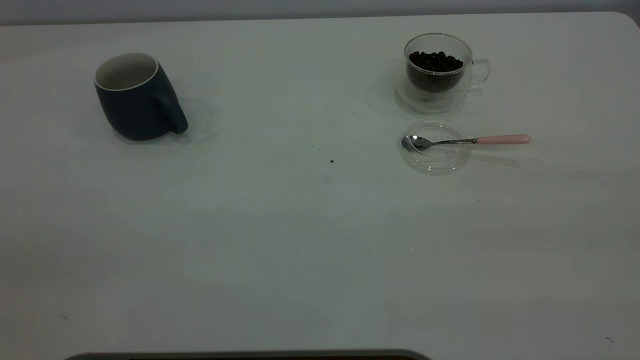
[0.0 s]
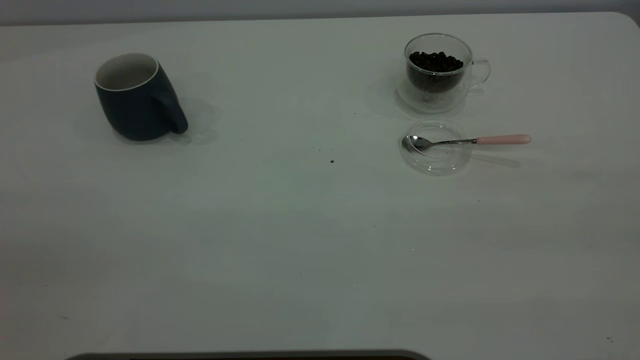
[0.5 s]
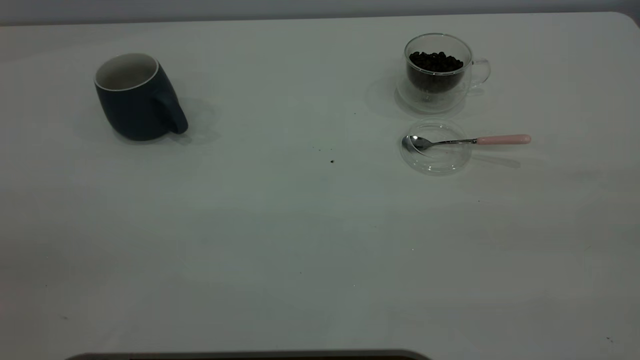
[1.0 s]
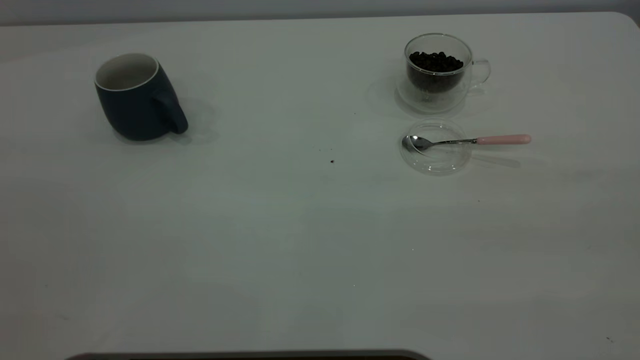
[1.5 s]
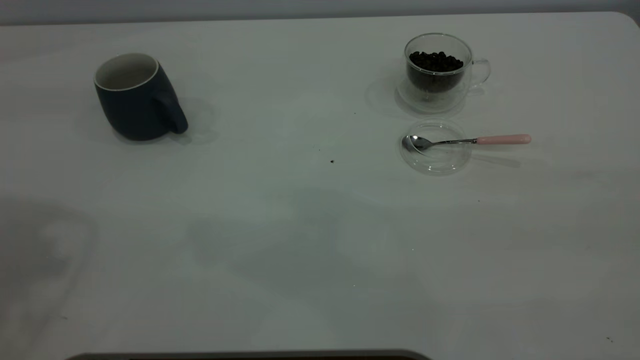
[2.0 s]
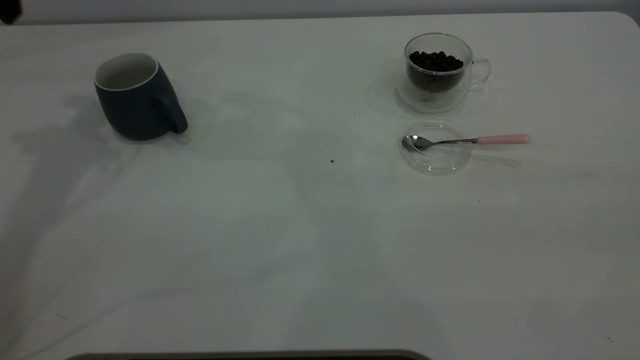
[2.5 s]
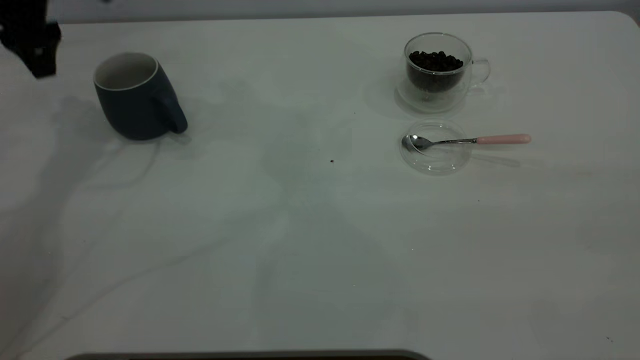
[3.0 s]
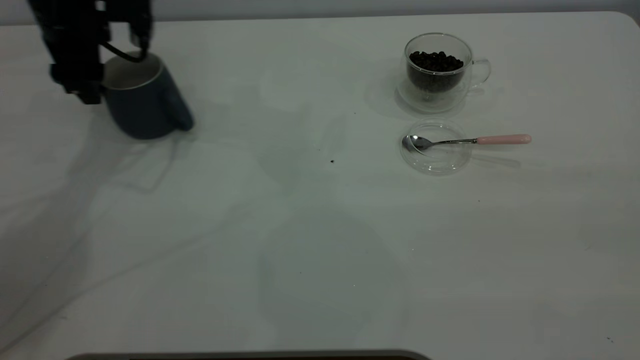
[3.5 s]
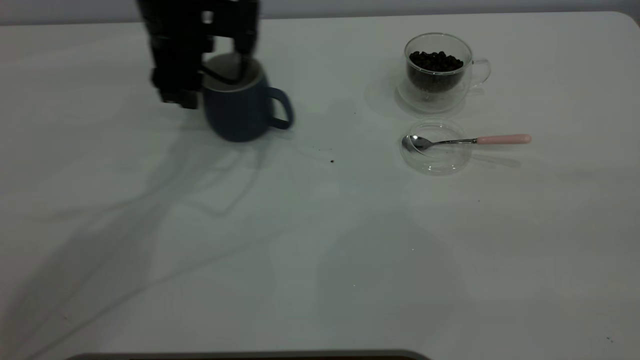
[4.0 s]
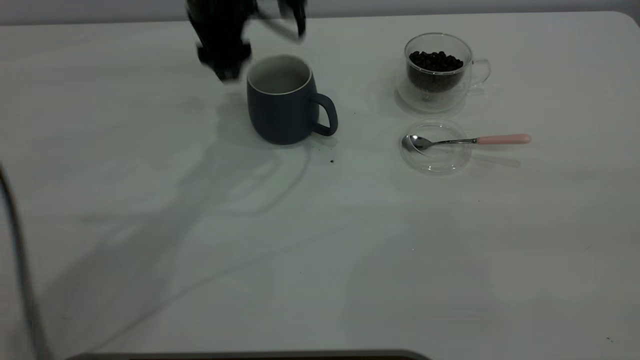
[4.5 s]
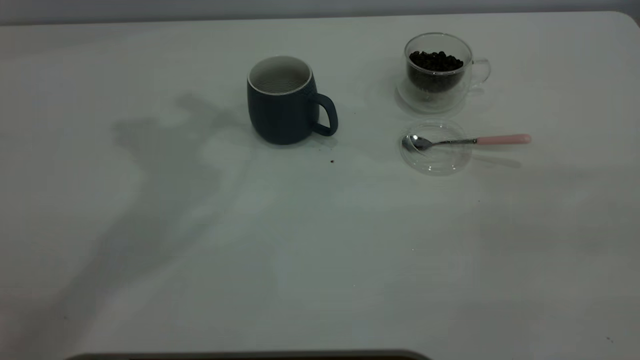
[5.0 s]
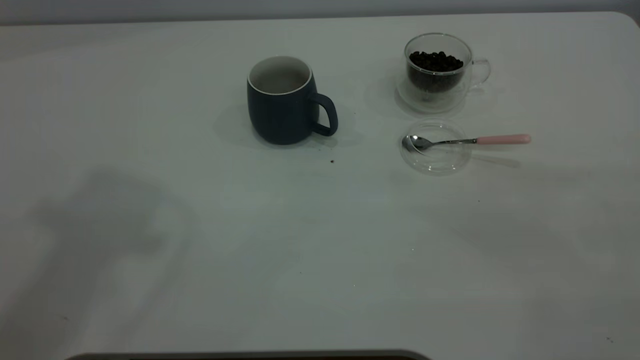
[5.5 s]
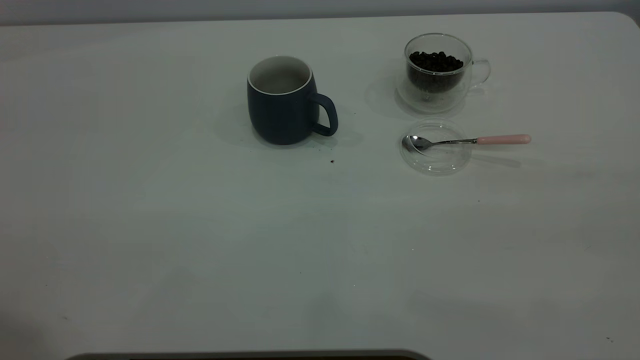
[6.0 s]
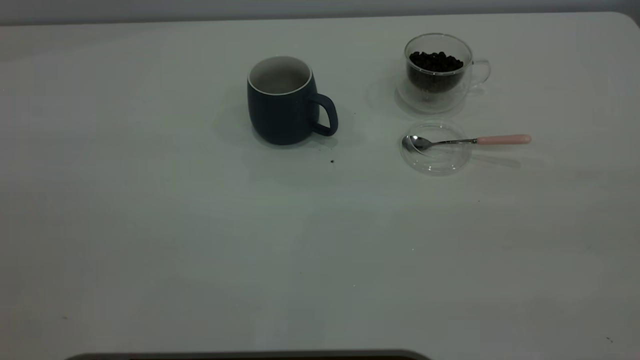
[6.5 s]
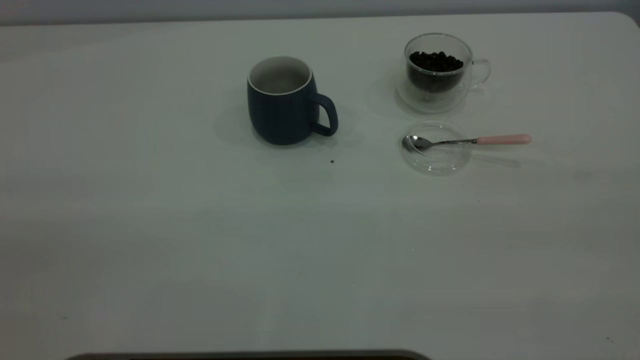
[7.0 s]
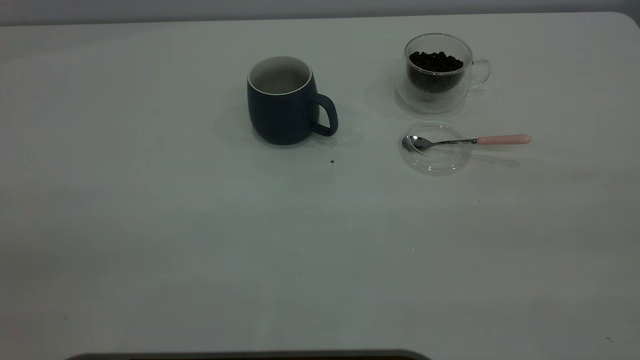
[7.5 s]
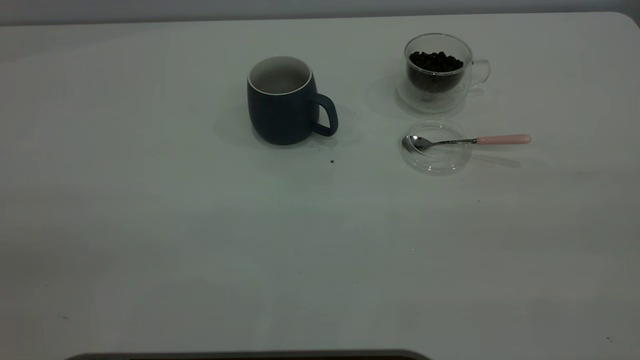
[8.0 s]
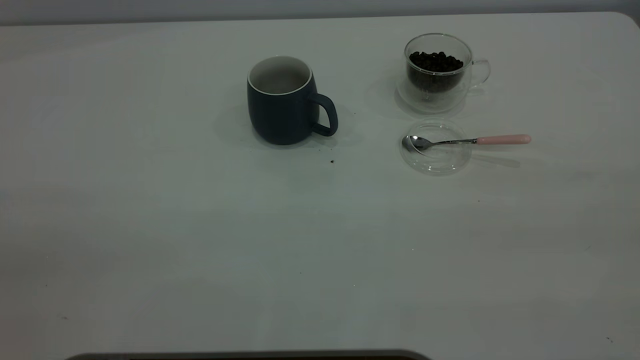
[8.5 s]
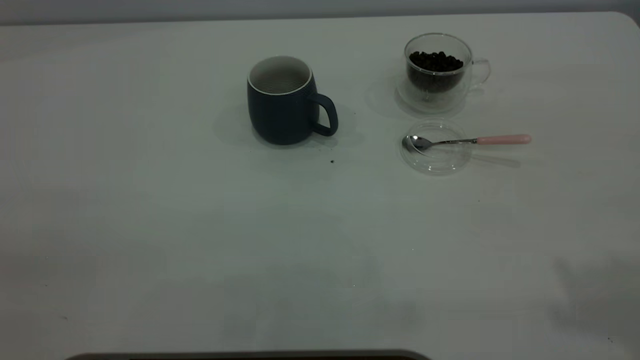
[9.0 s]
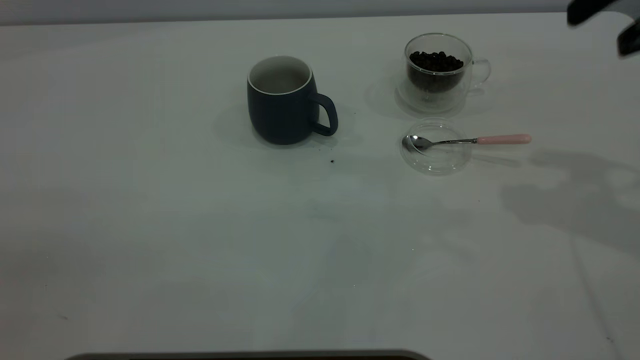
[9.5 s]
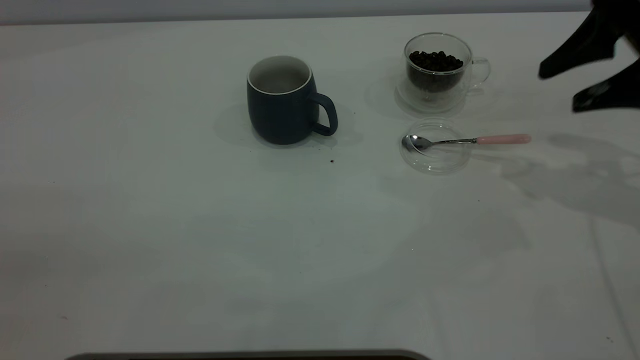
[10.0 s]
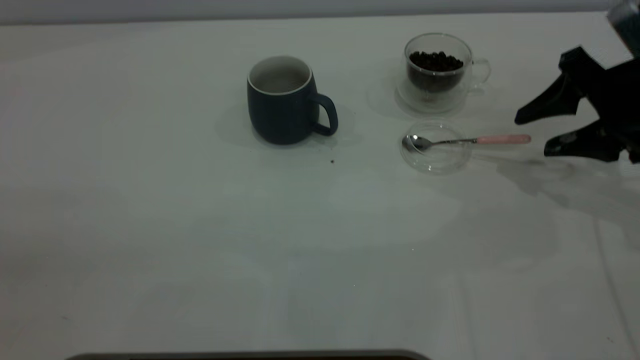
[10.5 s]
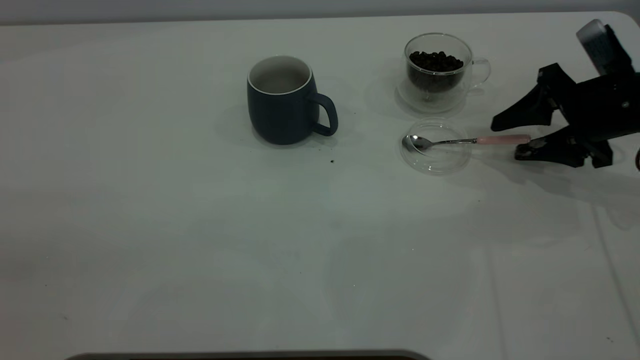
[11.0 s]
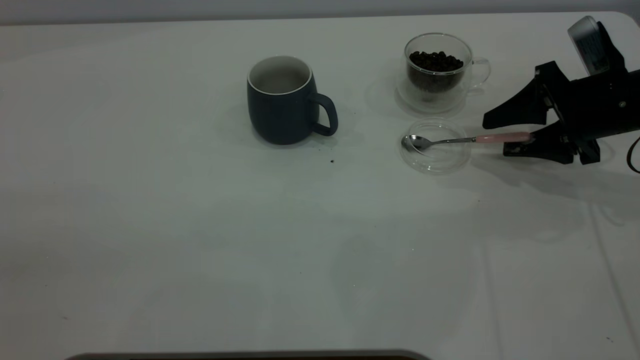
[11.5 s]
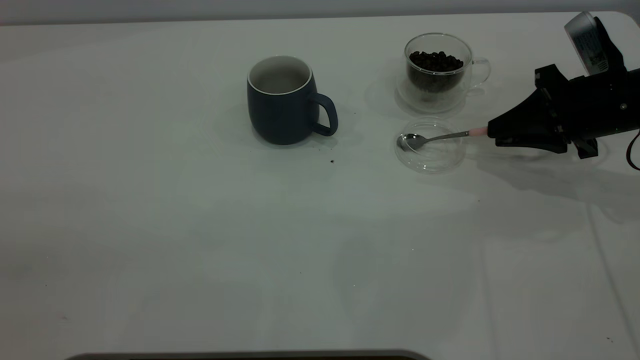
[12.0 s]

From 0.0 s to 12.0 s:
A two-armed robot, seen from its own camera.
Task of the whole recording: the left gripper place the grey cup in the center of the table, the right gripper take the pink spoon from the cup lid and scoop out the coffee beans from the coffee cup and put them into the grey cup, the right gripper put the spoon back into the cup lid.
Step, from 0.0 s to 4.5 s: Move the cup to the center of view.
From 2.0 s to 4.0 s: The left gripper shifts roughly 35 cm downward, forward and to the right.
From 4.0 s to 6.0 s: The left gripper heads upward and backward, covering some 50 cm.
From 8.0 s to 10.0 s: The right gripper travels forward and downward by approximately 40 cm.
From 10.0 s to 12.0 s: The right gripper shifts some 10 cm downward, and closes its fingers.

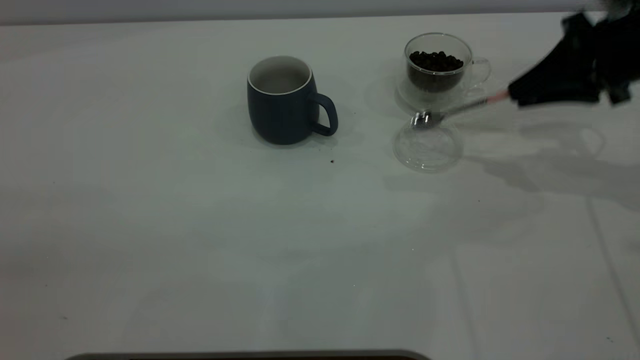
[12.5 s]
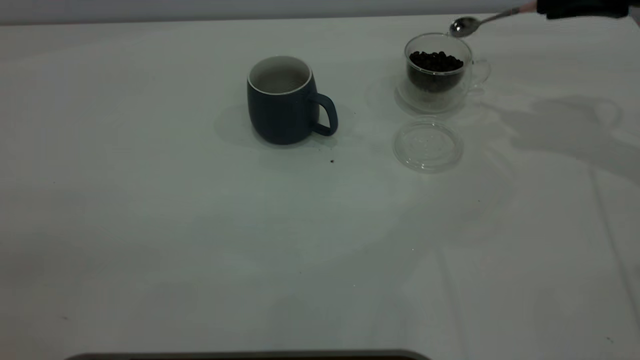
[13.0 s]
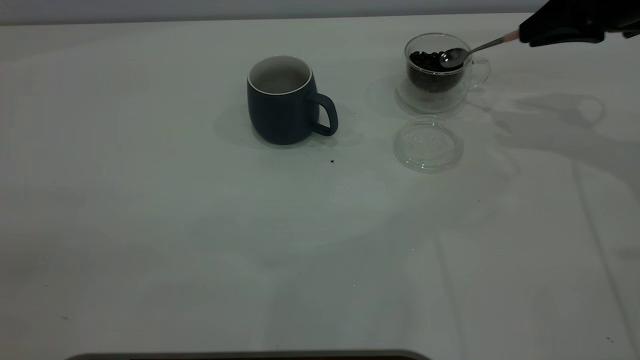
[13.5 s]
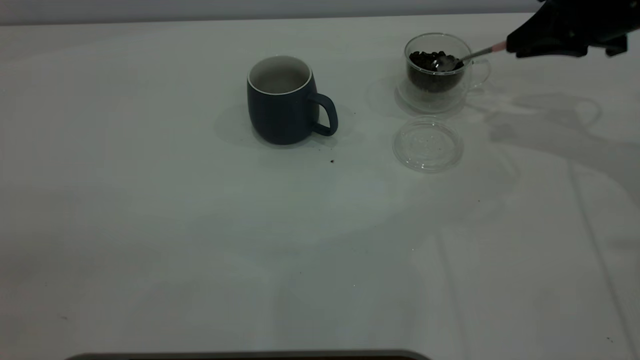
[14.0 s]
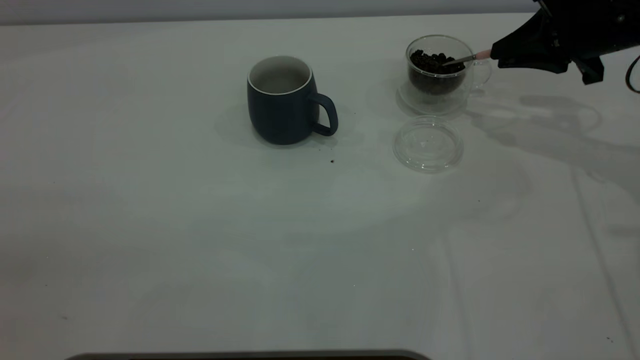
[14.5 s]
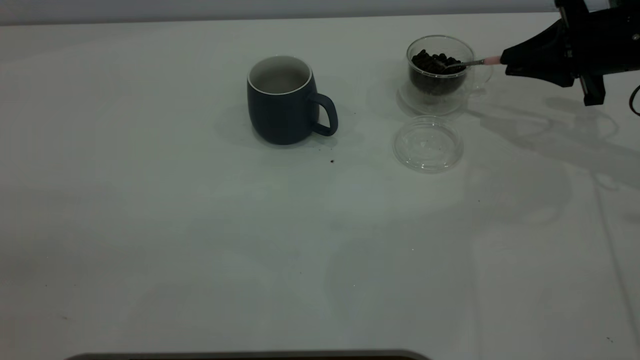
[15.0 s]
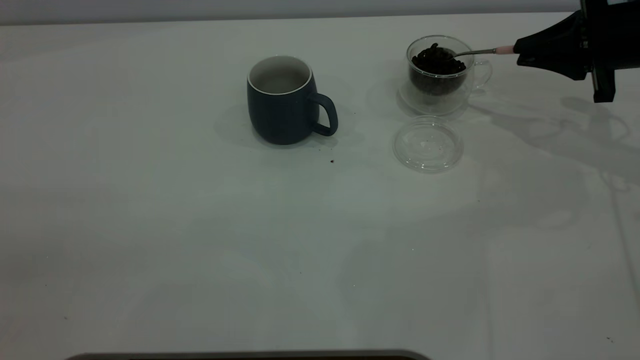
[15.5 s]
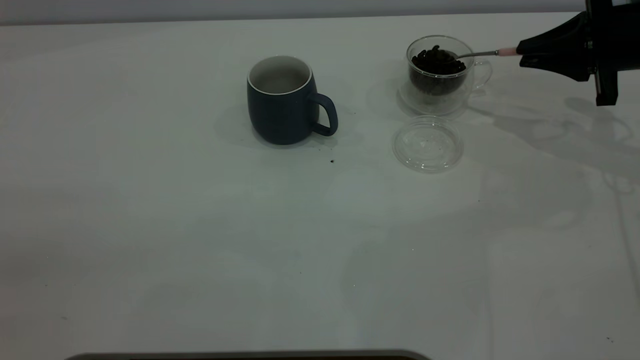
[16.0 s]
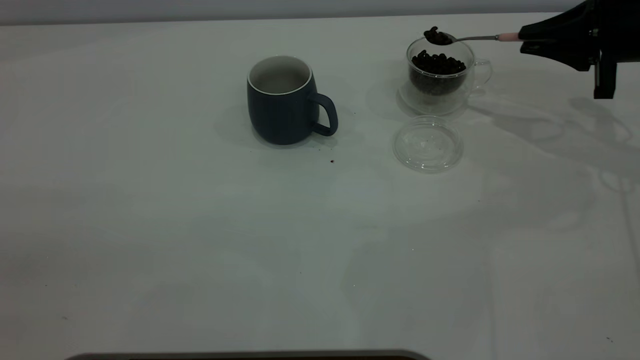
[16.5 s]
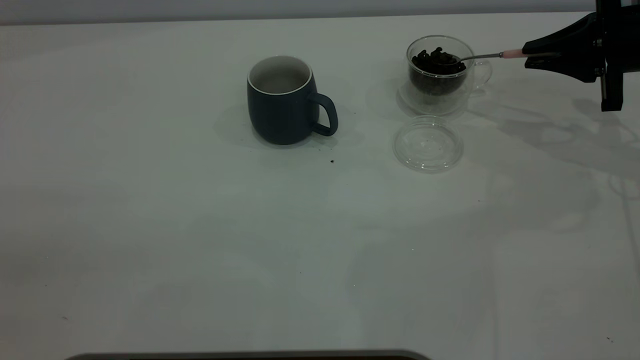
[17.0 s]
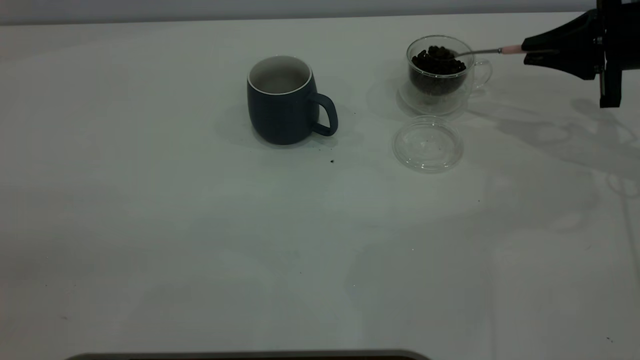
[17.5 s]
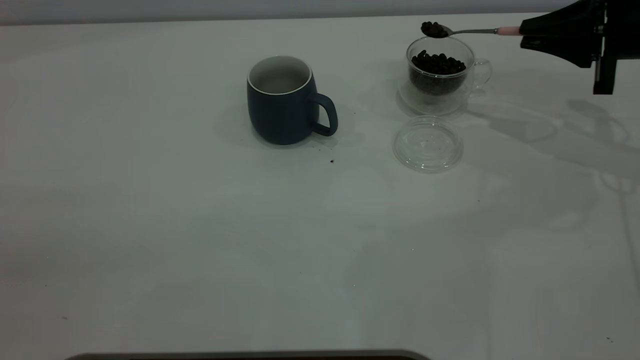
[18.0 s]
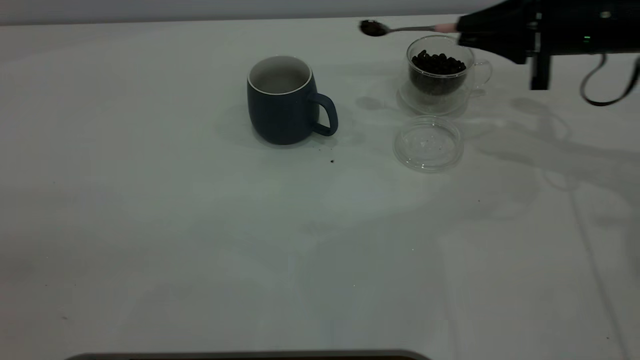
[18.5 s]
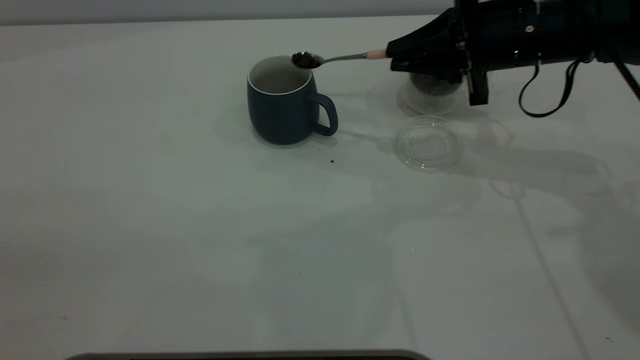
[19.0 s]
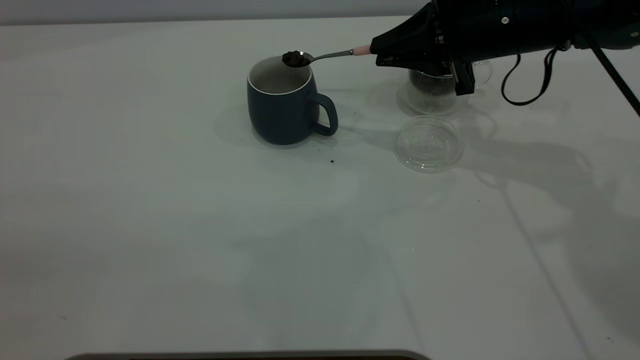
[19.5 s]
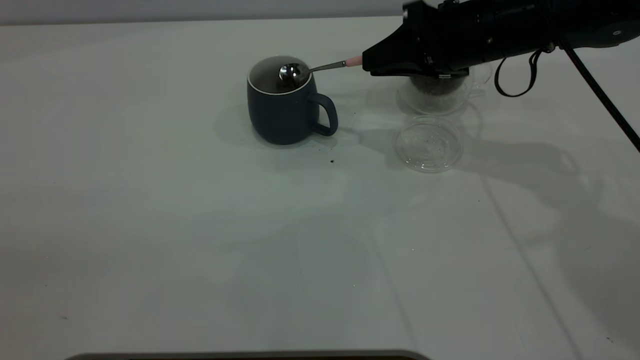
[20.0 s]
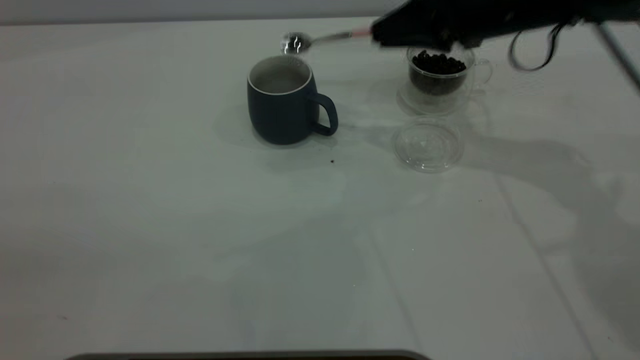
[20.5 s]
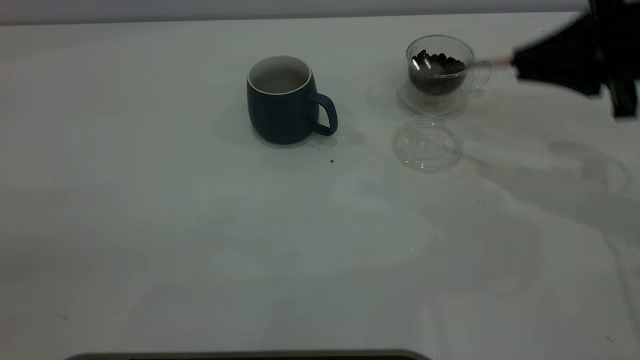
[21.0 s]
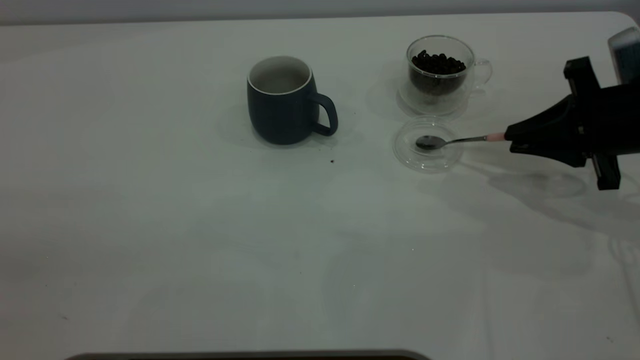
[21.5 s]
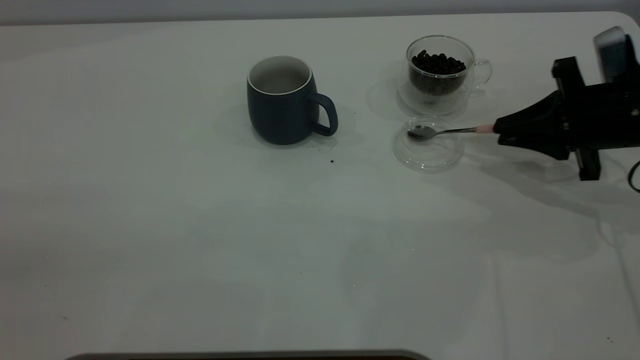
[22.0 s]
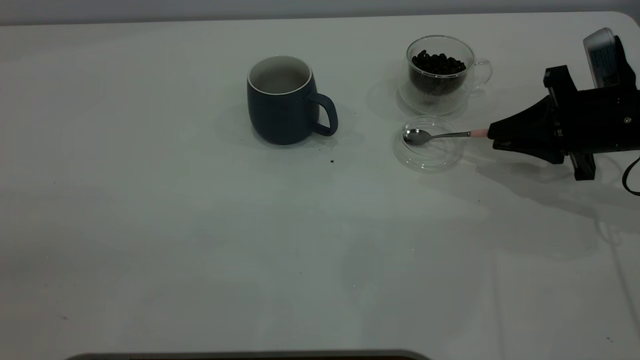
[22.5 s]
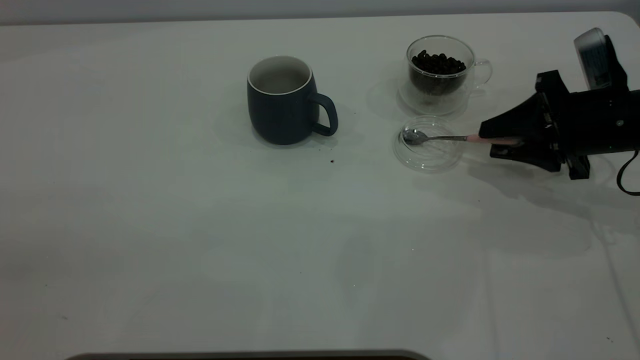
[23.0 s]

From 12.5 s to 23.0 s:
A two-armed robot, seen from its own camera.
Task of the whole recording: the left gripper place the grey cup in the center of the table, the right gripper take the pink spoon from the cup lid and scoop out the coffee beans from the coffee cup and put them into the grey cup, the right gripper put the spoon back into the cup lid.
Step, from 12.5 s to 20.0 s: Scoop a spoonful of beans into the cup.
From 12.5 s to 14.5 s: The right gripper changes place by roughly 5 cm.
From 16.5 s to 19.0 s: The right gripper moves to the left, approximately 15 cm.
From 19.0 s to 21.0 s: The right gripper is displaced to the right and backward by about 15 cm.
From 21.0 s to 23.0 s: The right gripper travels downward by about 10 cm, and opens up.
